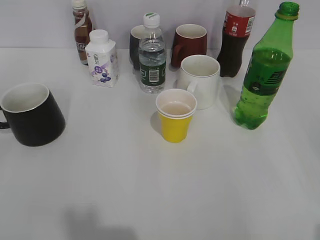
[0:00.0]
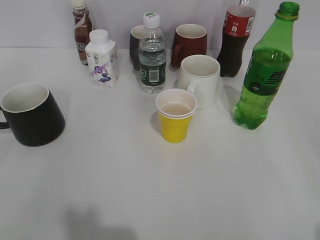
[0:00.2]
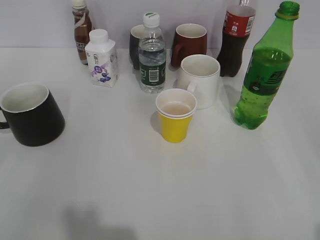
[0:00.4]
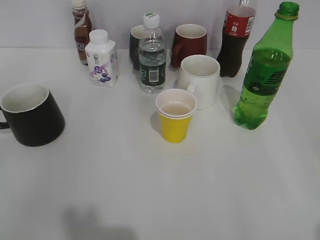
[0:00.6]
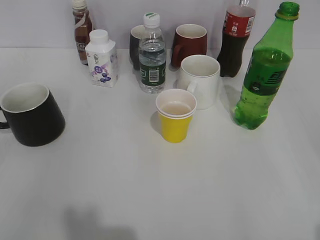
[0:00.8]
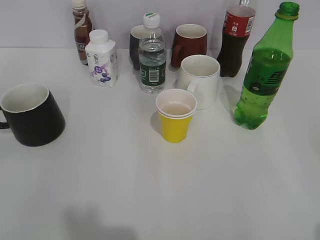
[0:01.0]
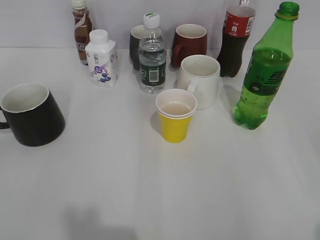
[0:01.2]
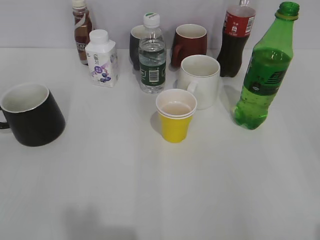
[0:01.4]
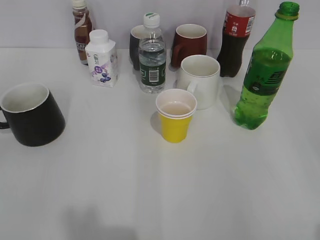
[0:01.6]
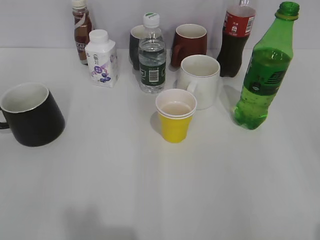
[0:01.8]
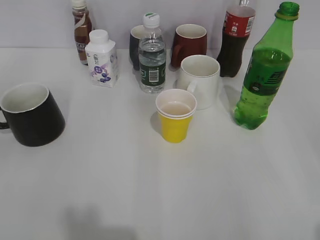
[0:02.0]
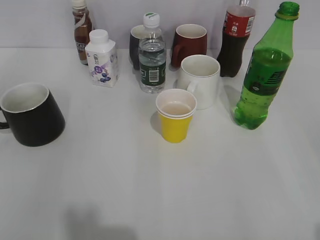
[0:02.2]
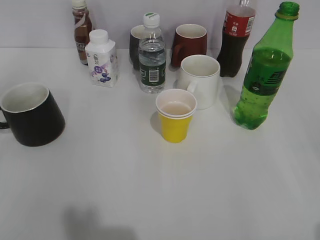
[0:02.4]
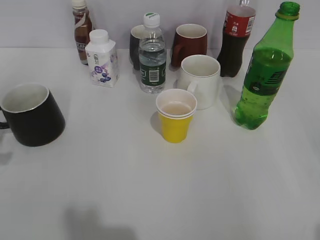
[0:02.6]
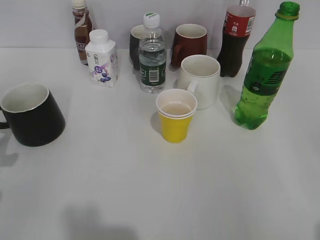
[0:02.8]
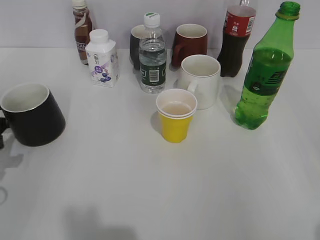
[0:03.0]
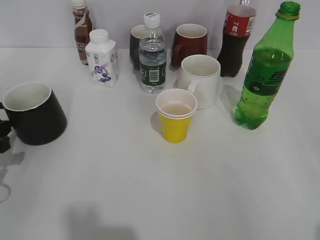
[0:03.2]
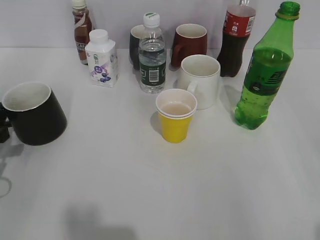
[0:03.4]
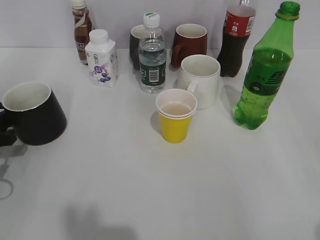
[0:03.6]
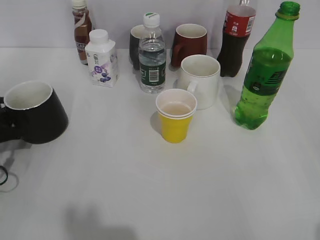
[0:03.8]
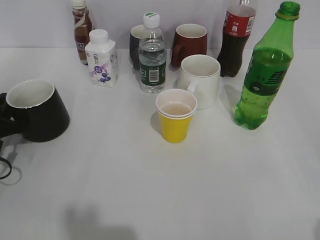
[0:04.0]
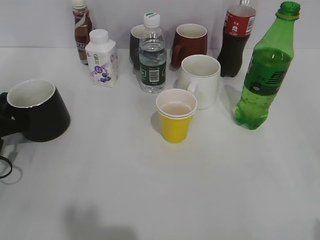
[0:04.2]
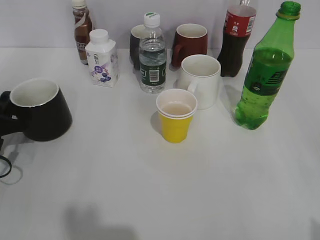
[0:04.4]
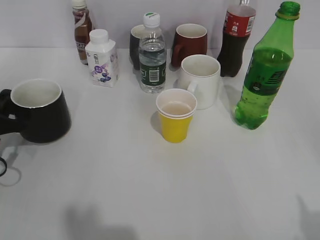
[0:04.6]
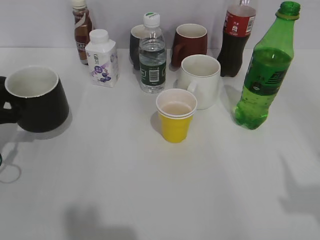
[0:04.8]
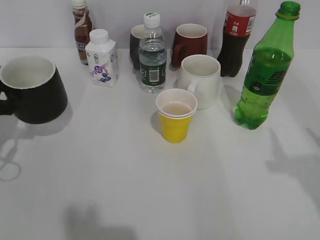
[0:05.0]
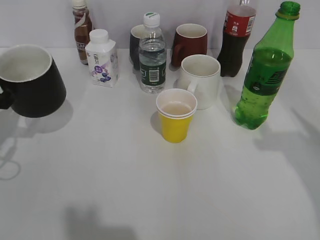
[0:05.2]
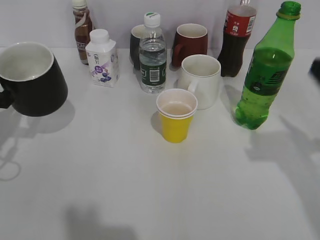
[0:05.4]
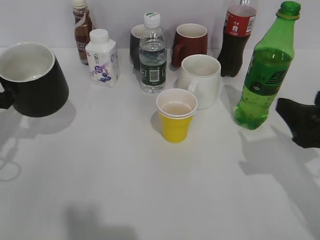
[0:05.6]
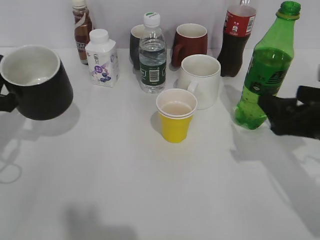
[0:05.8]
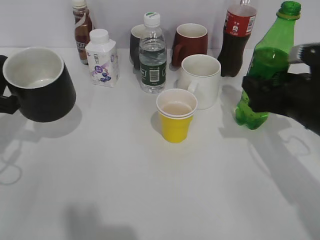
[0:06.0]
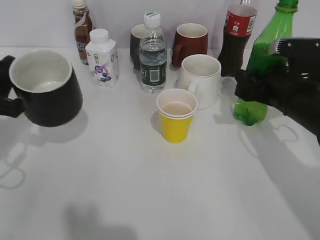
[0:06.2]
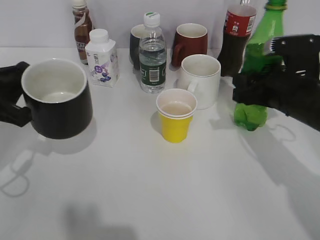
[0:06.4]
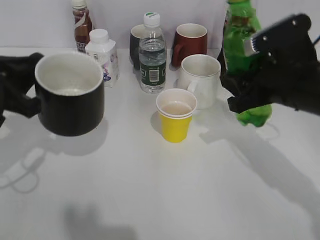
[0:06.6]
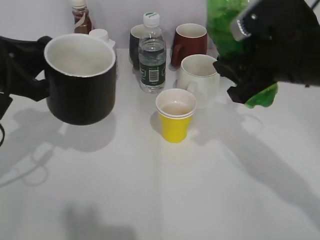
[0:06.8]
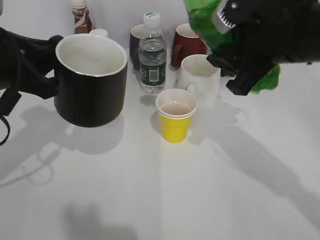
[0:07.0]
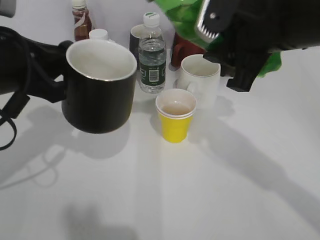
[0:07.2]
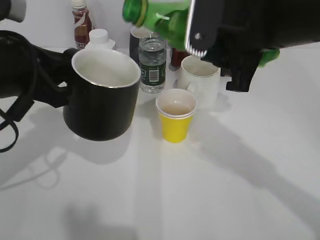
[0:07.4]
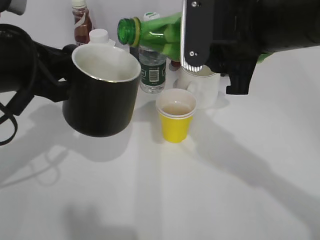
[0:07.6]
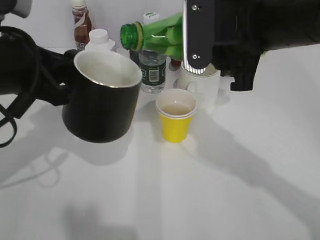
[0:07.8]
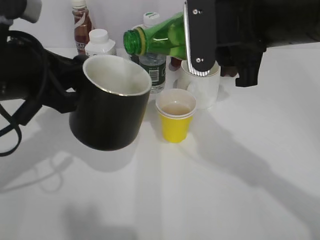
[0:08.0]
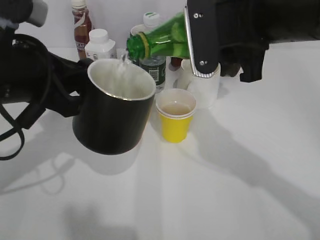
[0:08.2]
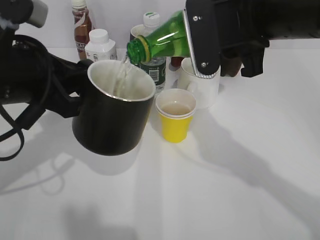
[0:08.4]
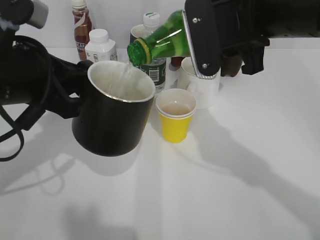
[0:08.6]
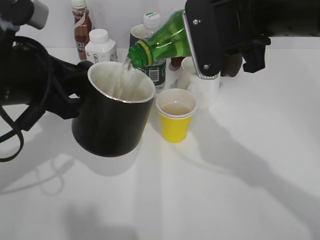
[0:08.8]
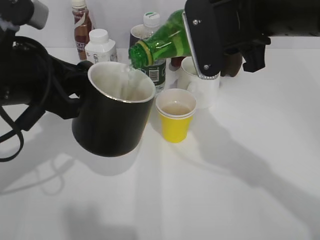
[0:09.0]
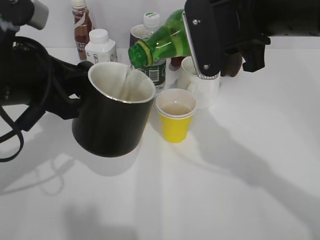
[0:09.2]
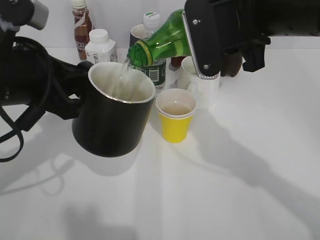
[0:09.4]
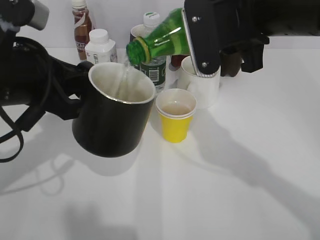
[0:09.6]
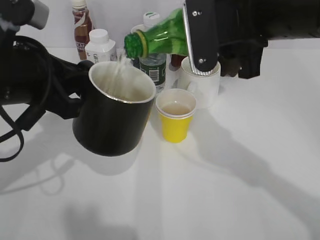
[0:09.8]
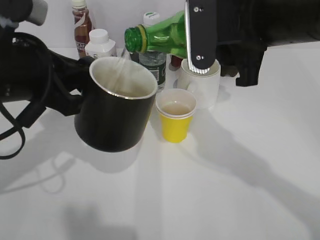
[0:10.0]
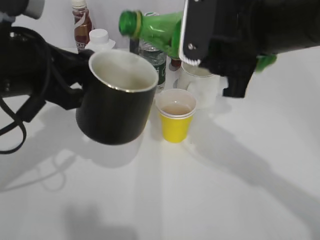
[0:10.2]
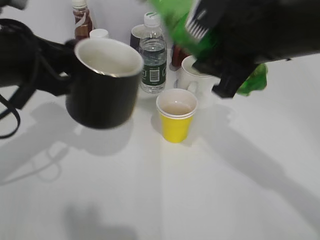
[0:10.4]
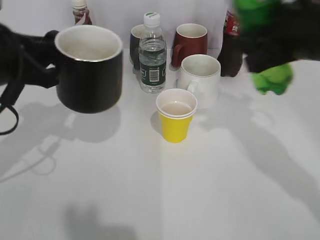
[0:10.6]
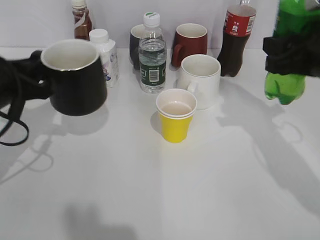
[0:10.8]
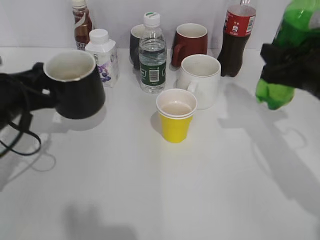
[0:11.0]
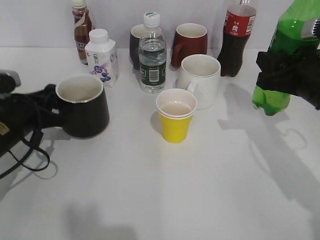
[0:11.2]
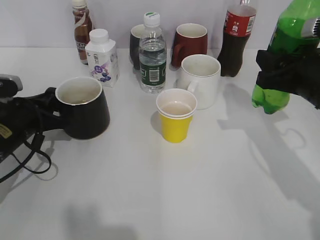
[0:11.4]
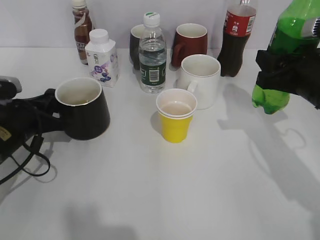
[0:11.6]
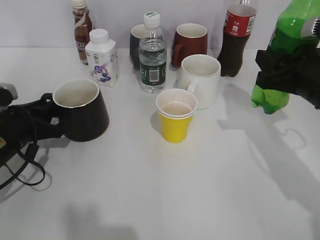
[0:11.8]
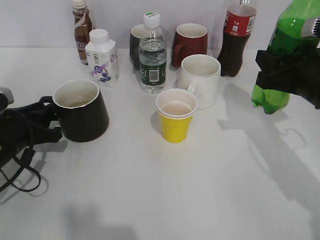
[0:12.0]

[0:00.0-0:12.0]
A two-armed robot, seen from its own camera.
Step, 0:01.8 to 0:04.4: Grasp the black cup with left gripper.
Step, 0:04.6 to 0:06.2: Grasp the bottle with sprite with right gripper.
Step, 0:06.4 to 0:10.2: Pour the sprite from bottle to cup with right gripper.
0:01.6 to 0:03.0: The left gripper is displaced forward and downward by some 25 cm.
0:03.0 to 0:04.4: The left gripper moves forward, some 5 cm, and closes.
0:04.4 to 0:06.0: The left gripper is displaced upward by approximately 5 cm, while the right gripper travels forward by about 25 cm.
0:06.0 to 0:07.6: The right gripper goes some 15 cm to the left and upward, and closes its fingers. The left gripper goes some 15 cm to the right and upward.
0:10.4 to 0:12.0: The left gripper travels downward by approximately 15 cm, and opens its fingers; the right gripper moves to the right and downward, about 15 cm.

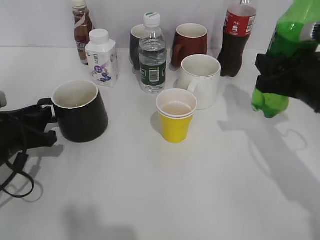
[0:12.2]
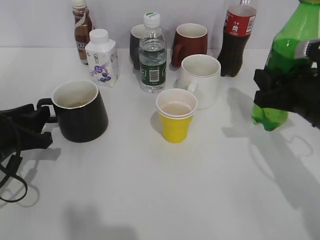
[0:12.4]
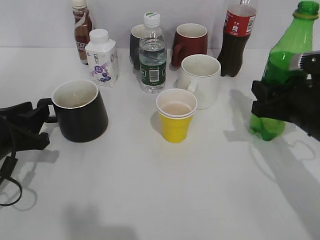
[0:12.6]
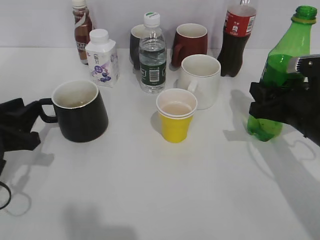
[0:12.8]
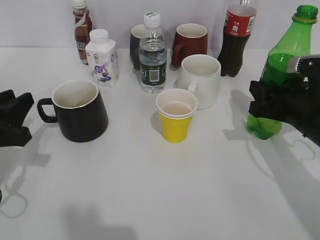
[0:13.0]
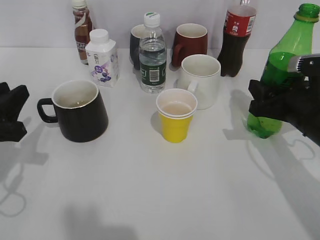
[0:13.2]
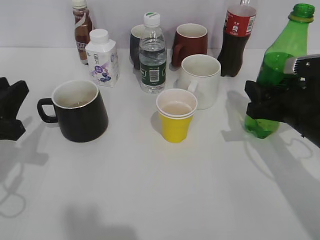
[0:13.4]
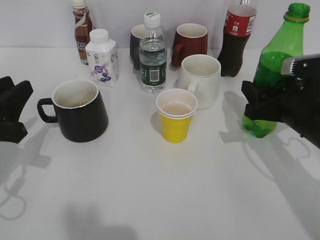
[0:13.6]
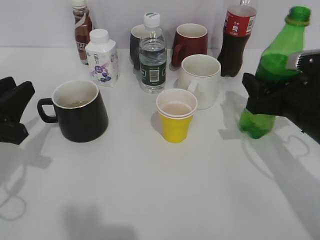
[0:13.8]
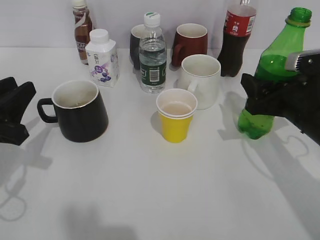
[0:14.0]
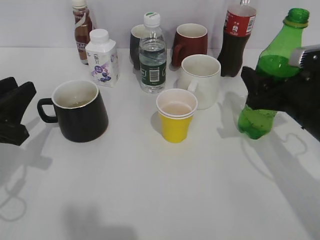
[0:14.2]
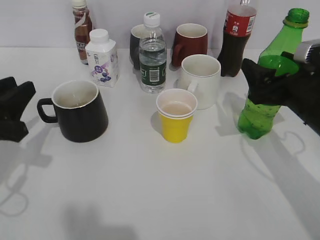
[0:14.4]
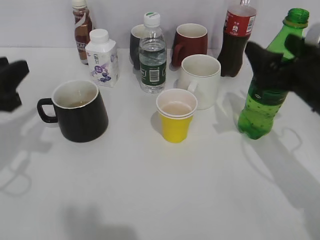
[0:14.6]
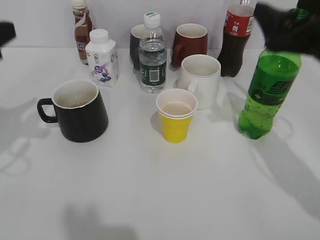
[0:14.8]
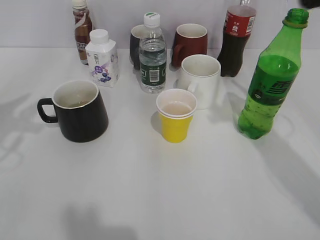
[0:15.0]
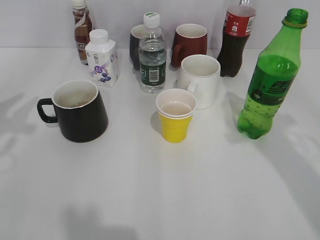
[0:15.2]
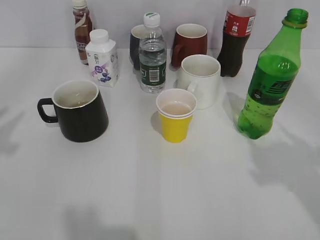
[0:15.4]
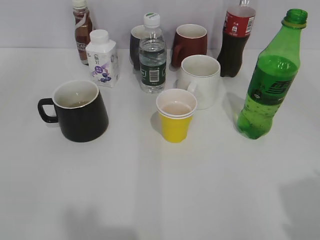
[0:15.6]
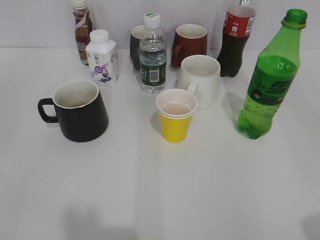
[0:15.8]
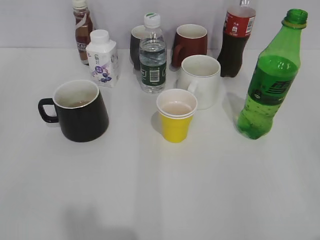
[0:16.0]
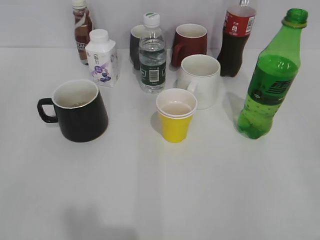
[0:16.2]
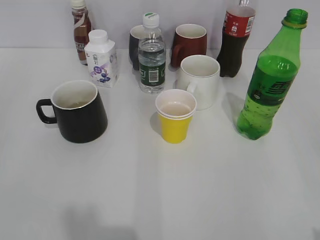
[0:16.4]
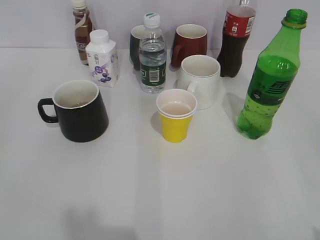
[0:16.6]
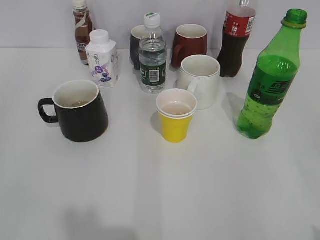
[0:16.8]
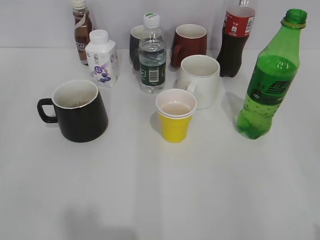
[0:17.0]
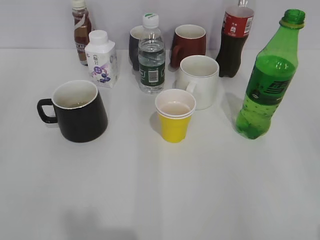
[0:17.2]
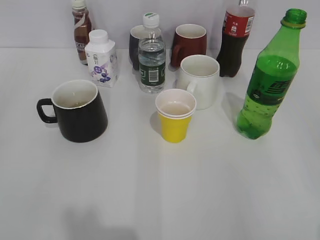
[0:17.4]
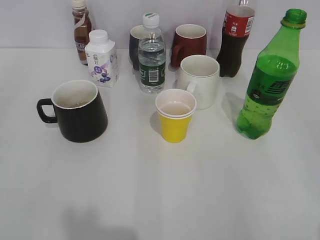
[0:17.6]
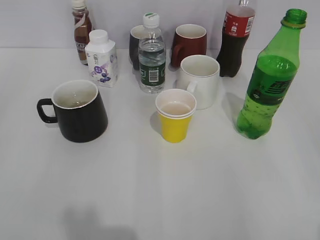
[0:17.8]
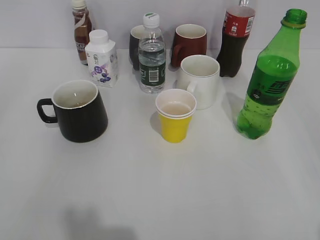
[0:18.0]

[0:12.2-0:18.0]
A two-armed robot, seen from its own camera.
Step, 0:12.4 to 0:14.4: Place the sprite bottle on the table with right gripper.
0:12.2 to 0:13.6: The left gripper goes roughly 5 cm upward.
0:13.6 to 0:15.0: The two grippers go some 15 cm upward. The right gripper opens.
0:15.0 to 0:16.6: The right gripper shifts about 25 cm backward.
